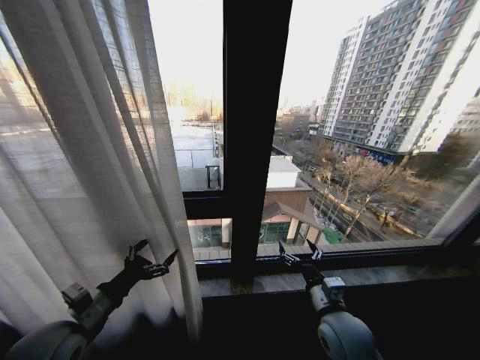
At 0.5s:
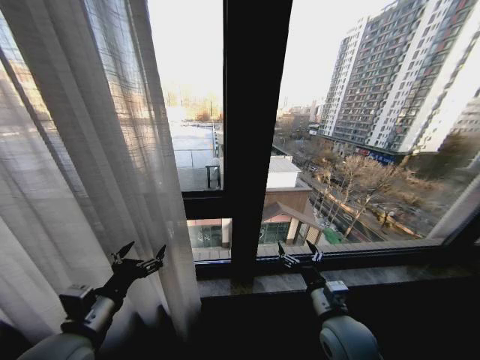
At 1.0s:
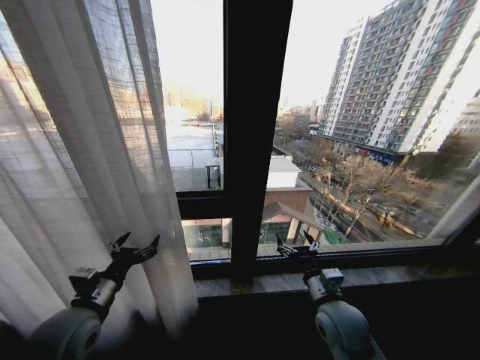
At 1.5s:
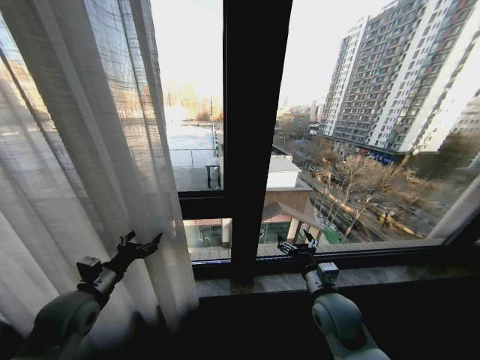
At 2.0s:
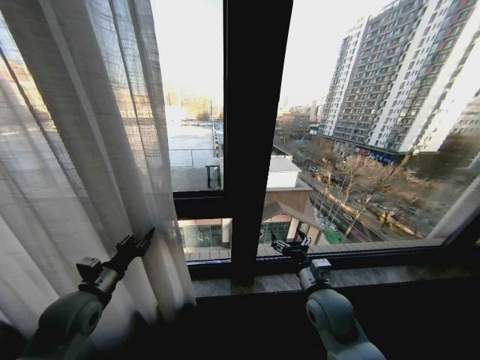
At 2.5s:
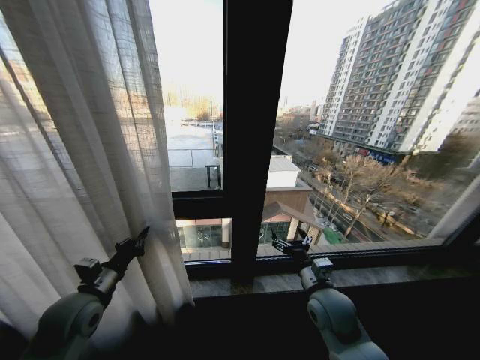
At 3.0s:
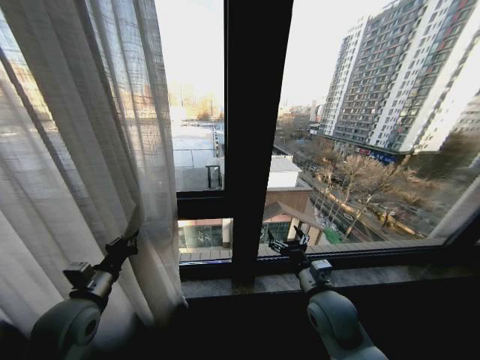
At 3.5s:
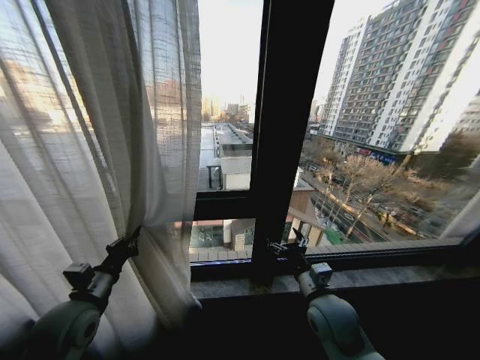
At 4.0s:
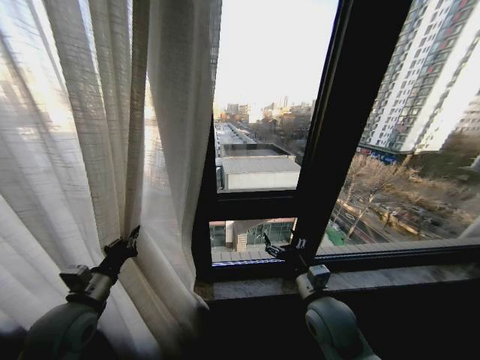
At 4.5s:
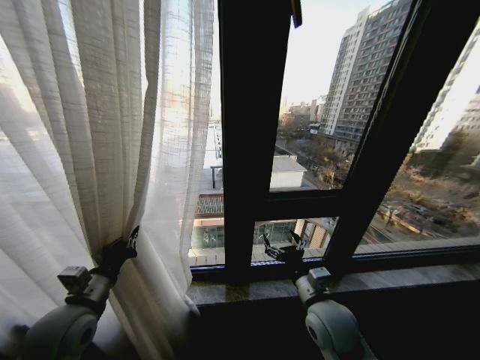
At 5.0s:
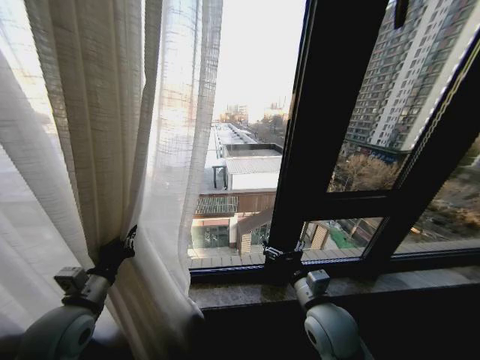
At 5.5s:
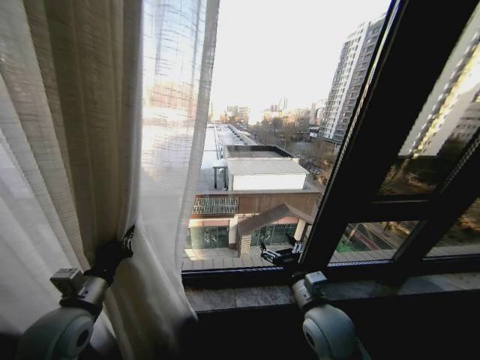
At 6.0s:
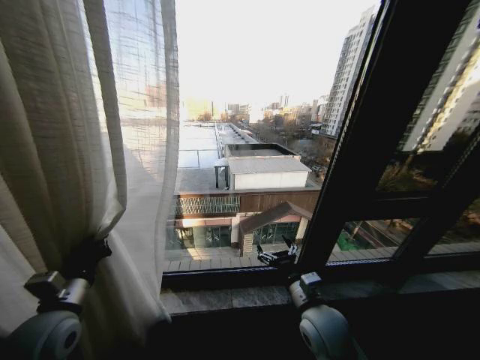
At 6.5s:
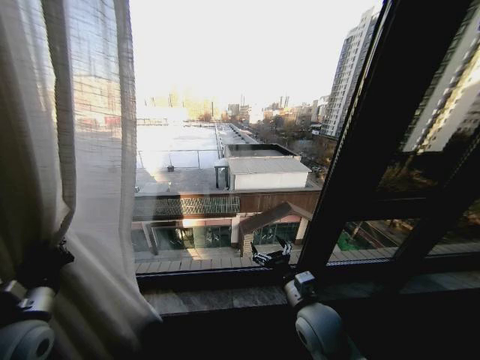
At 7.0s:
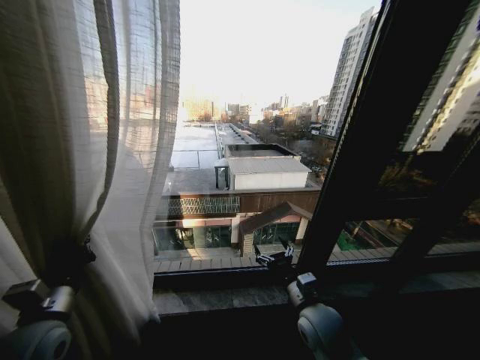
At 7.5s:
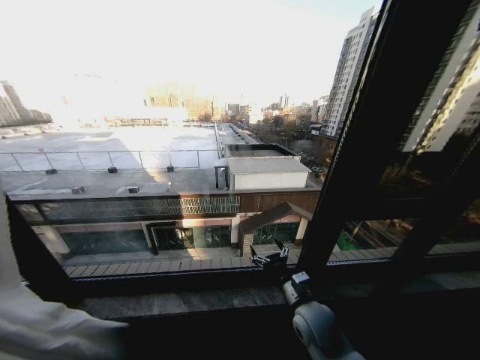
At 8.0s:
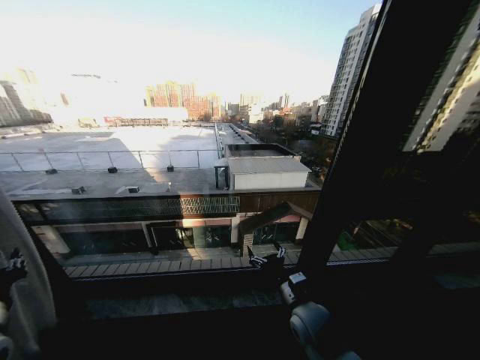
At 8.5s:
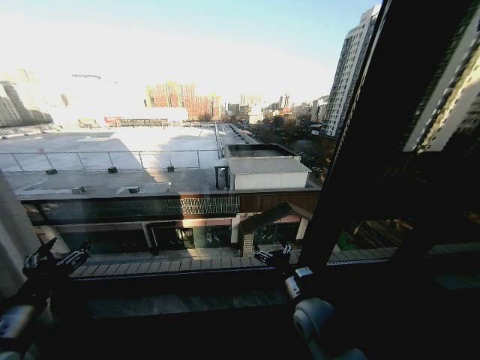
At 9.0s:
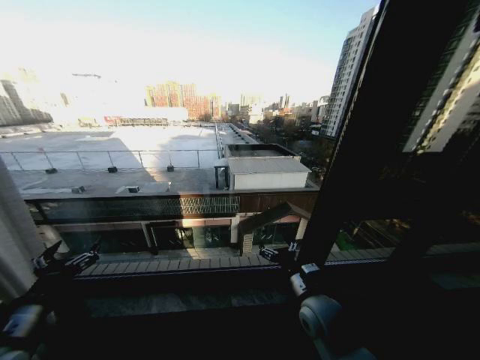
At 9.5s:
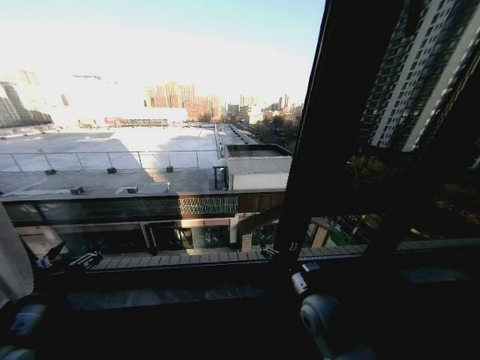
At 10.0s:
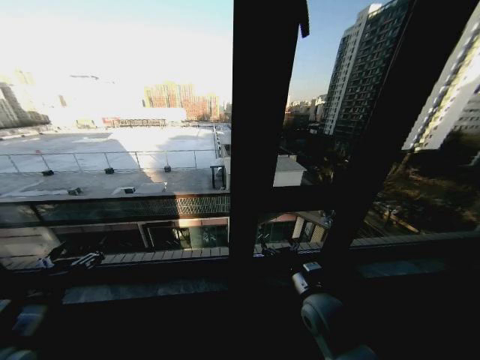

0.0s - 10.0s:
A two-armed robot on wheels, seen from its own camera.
Task of the whole recording: Open the curtains by pulling them apart, changing their state from closed to fully open.
0.0s - 2.0s: The two grippers go some 5 cm forward. The left gripper closes its fingers.
2.0s - 4.0s: The left gripper closes.
6.0s - 8.0s: The left gripper is displaced to the left by roughly 10 cm.
8.0s - 10.0s: The left gripper is displaced to the right by about 5 cm, and opens its fingers.

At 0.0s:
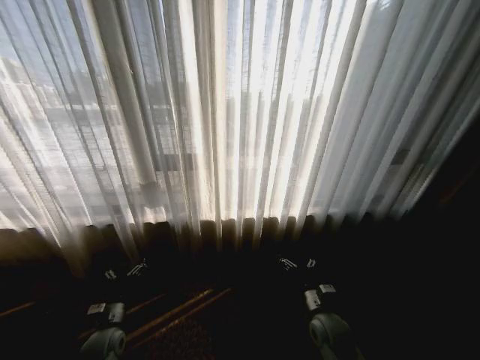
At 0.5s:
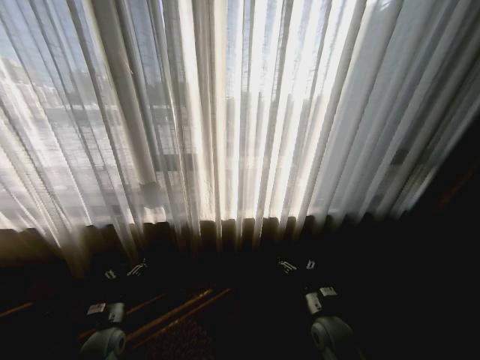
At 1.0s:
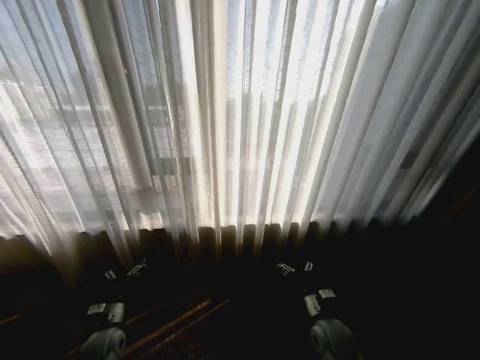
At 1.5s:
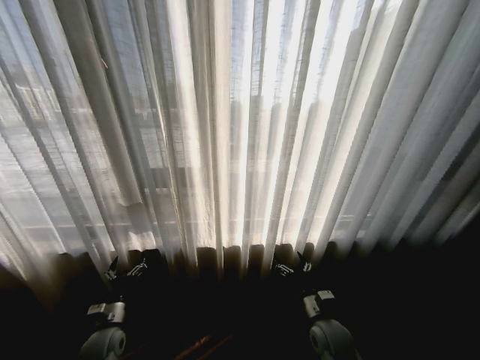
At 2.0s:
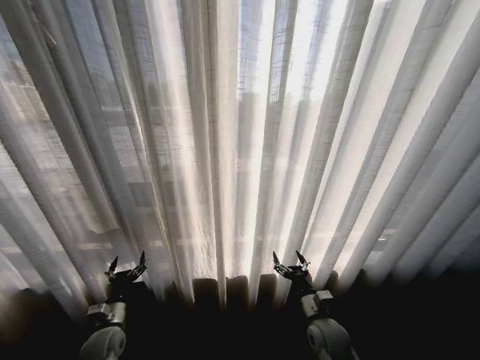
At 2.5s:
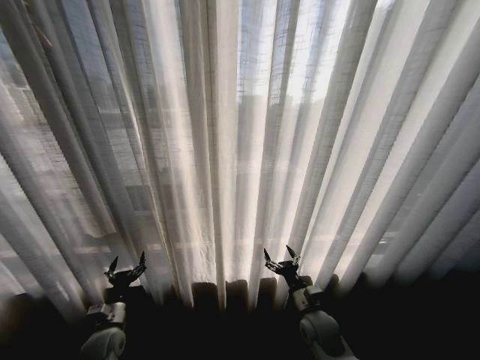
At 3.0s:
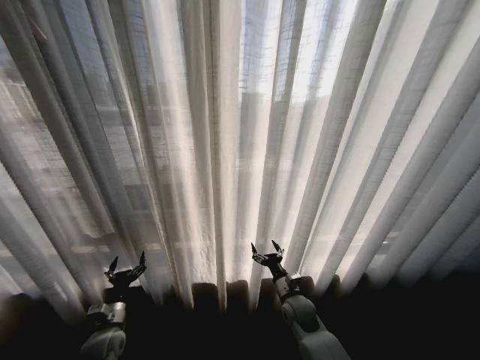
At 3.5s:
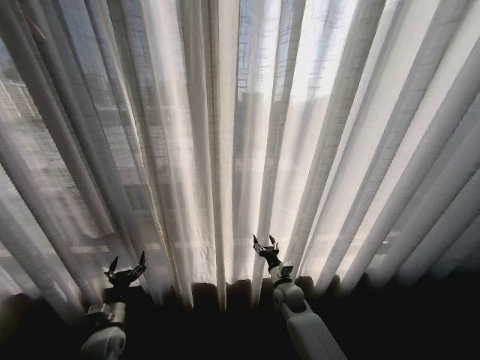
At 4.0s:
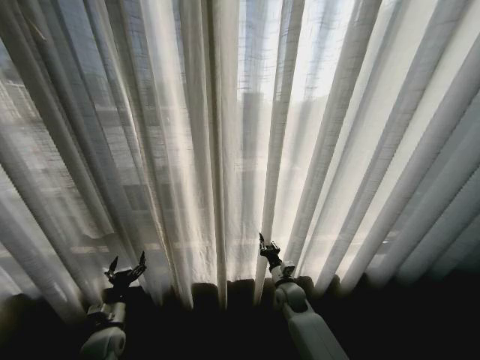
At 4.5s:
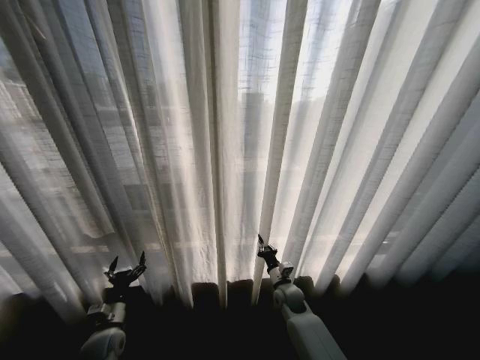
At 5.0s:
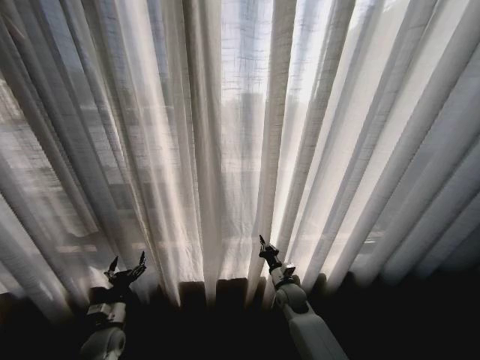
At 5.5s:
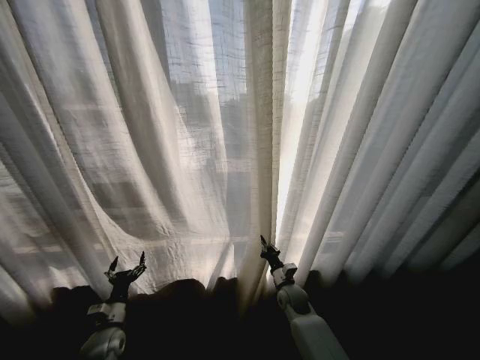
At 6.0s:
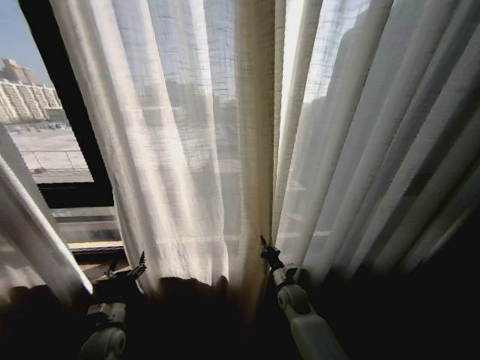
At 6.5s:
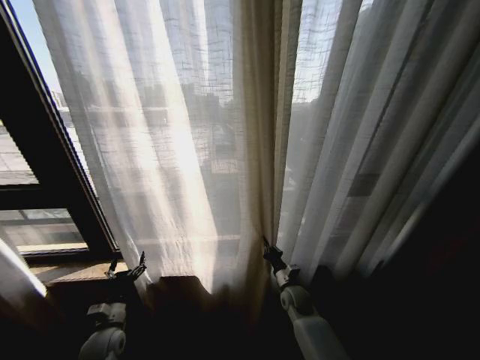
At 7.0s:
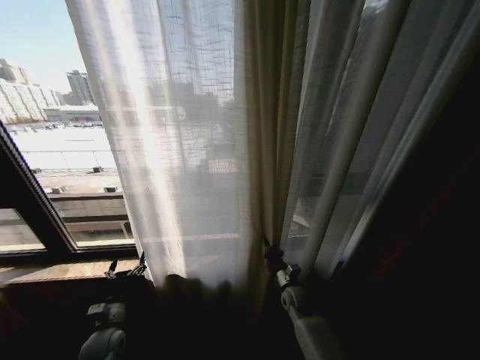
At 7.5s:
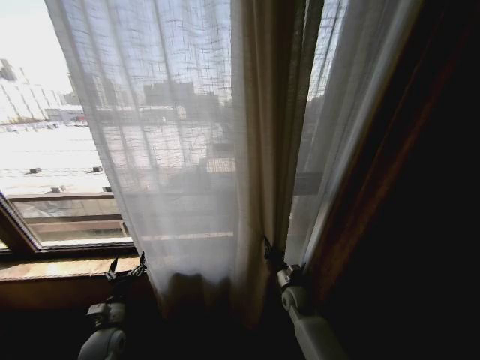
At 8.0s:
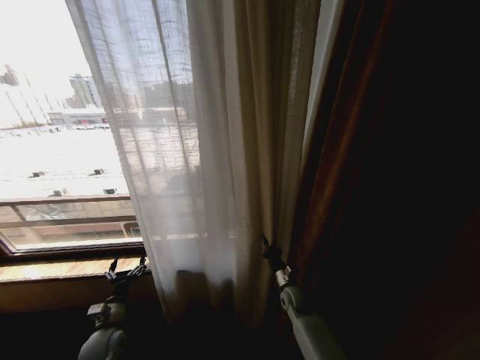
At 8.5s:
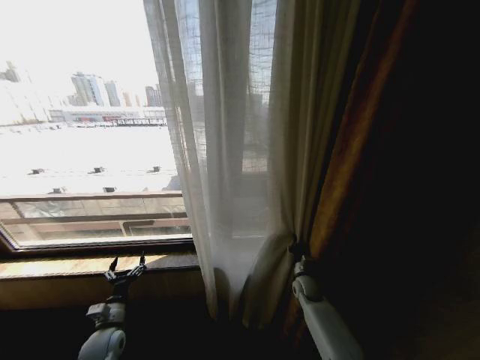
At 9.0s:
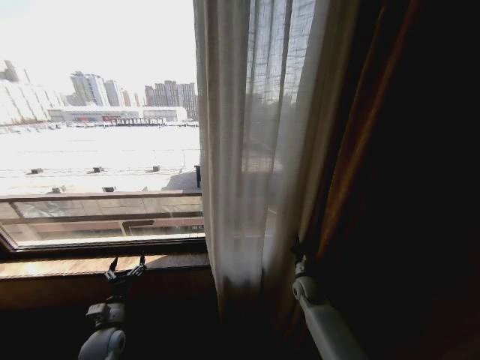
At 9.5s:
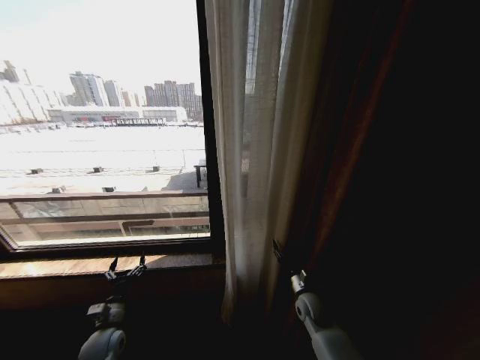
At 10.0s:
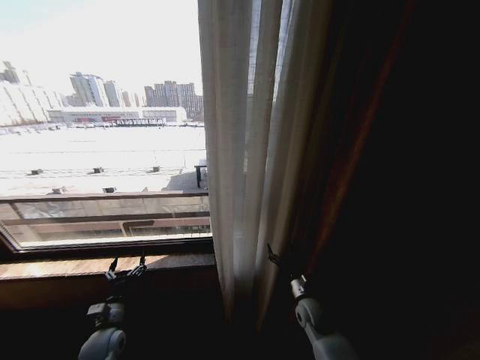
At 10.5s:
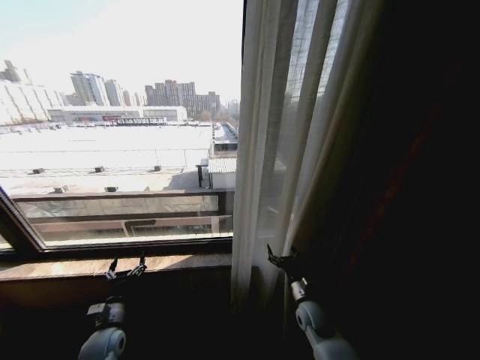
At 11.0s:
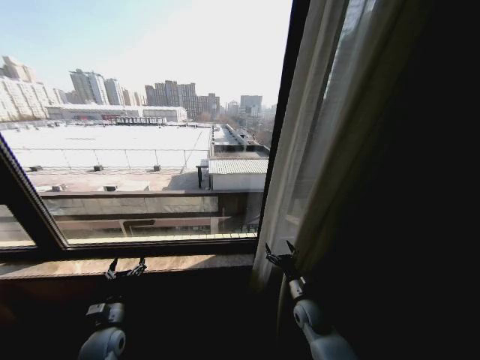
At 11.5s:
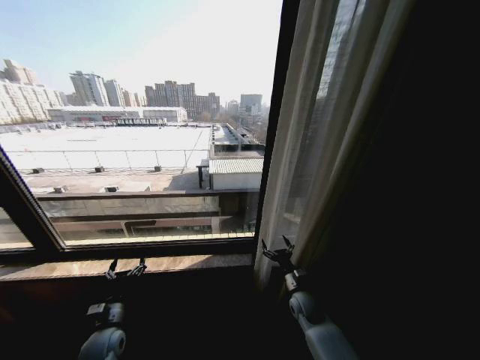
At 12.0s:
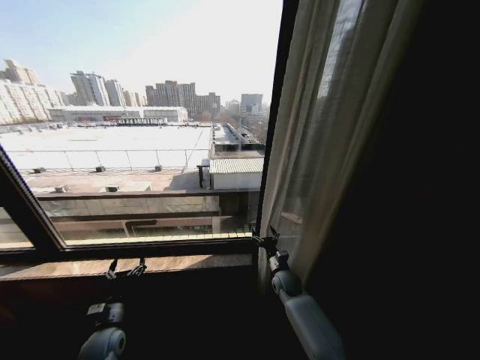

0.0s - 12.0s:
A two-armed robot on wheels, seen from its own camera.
Task of the whole recording: Open the curtains by pulling them apart, changing their state from closed to fully open.
2.0s - 4.0s: The right gripper is displaced forward and to the left by some 15 cm, and closes up.
8.0s - 10.0s: The right gripper heads backward, covering some 5 cm, and opens.
10.0s - 12.0s: The right gripper heads forward, covering some 10 cm.

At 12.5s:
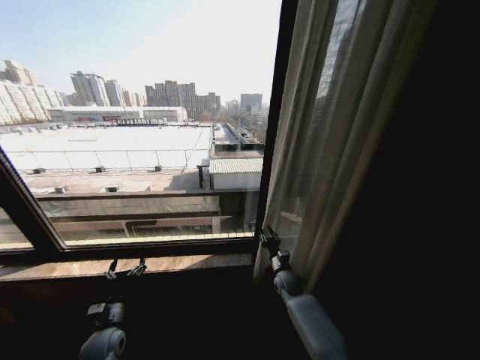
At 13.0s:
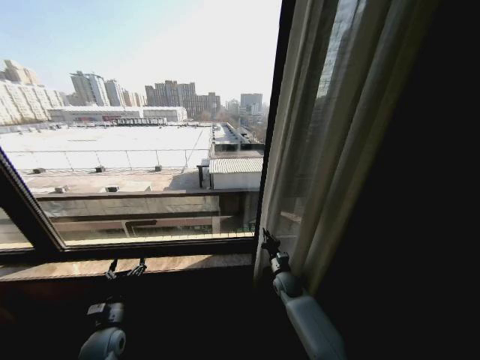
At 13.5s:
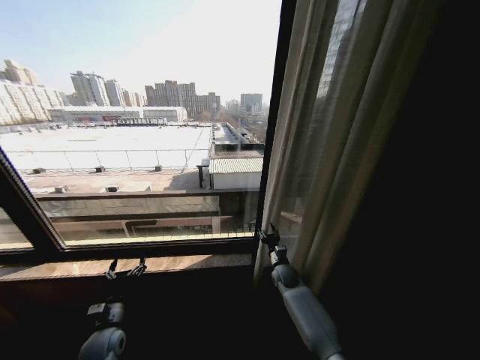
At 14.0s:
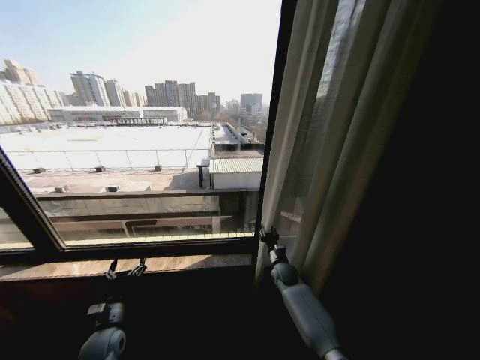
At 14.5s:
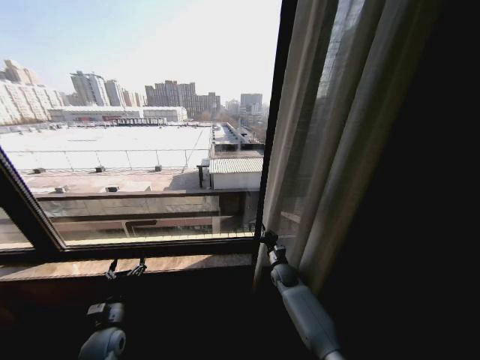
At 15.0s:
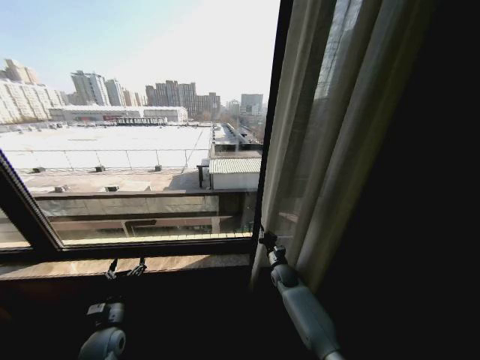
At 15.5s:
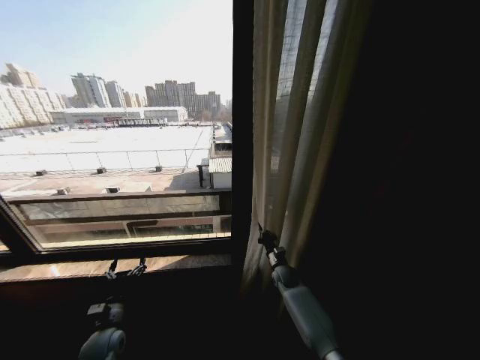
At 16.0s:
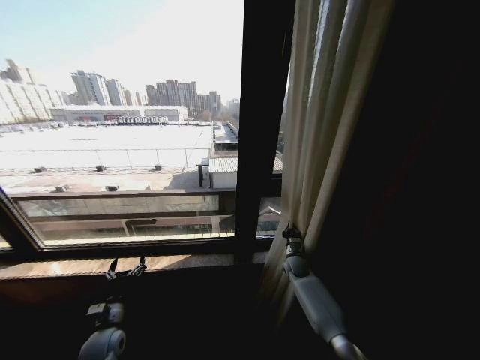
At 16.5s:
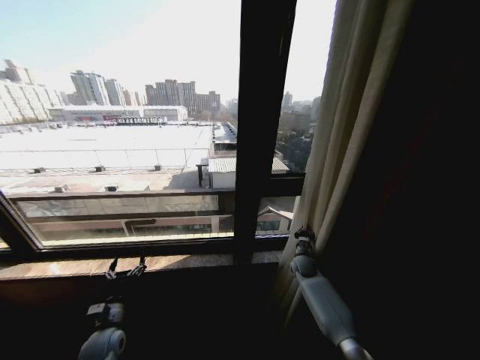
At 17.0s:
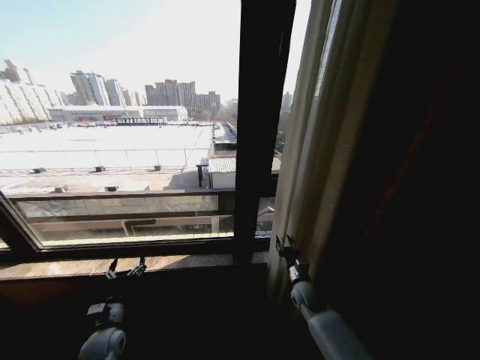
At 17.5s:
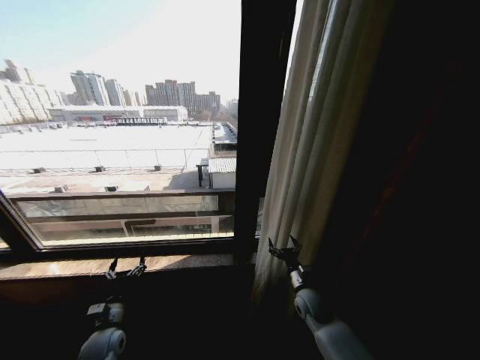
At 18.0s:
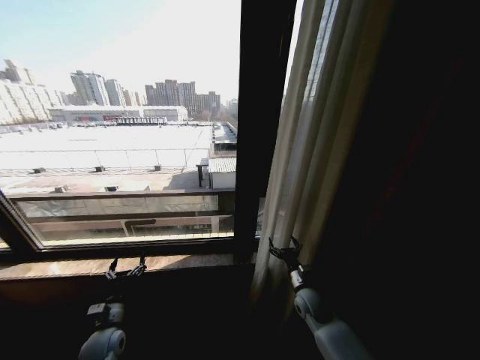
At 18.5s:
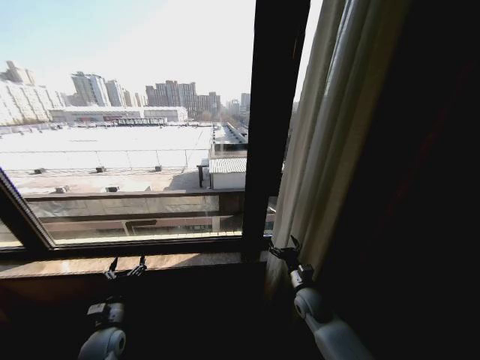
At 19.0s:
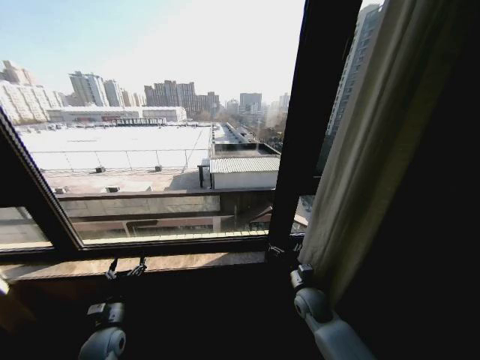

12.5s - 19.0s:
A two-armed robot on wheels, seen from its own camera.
Task of the whole recording: Open the curtains by pulling them apart, changing their state from closed to fully open.
12.5s - 14.5s: The right gripper closes.
14.5s - 17.0s: The right gripper moves backward, approximately 10 cm, and opens.
17.0s - 19.0s: The right gripper opens.
